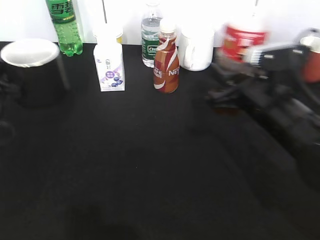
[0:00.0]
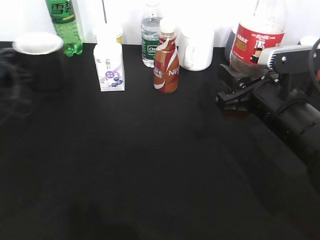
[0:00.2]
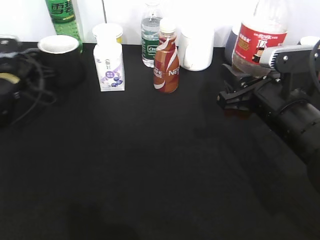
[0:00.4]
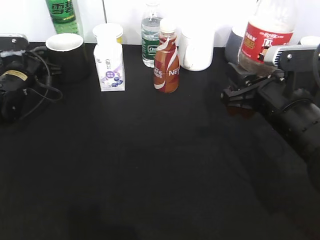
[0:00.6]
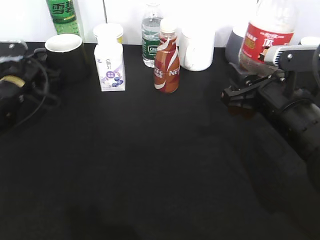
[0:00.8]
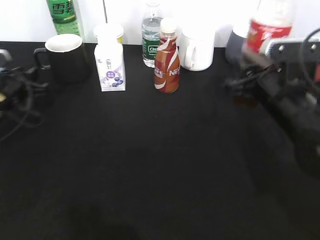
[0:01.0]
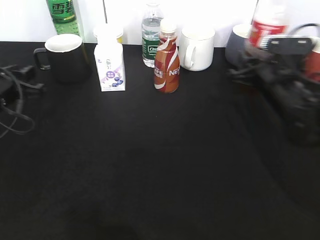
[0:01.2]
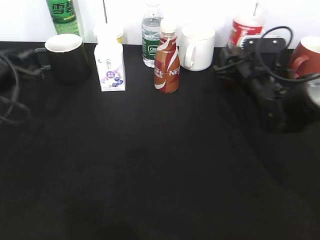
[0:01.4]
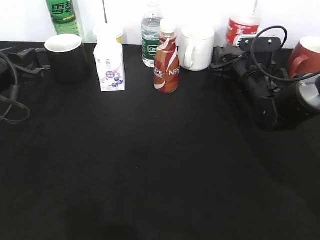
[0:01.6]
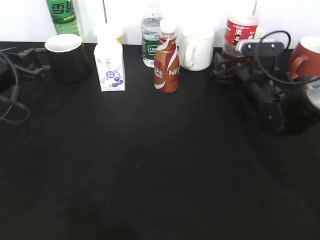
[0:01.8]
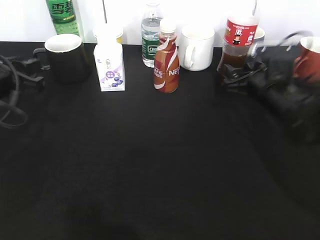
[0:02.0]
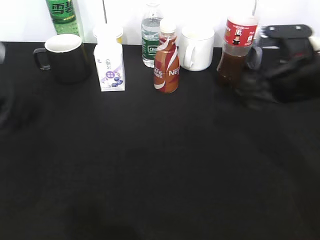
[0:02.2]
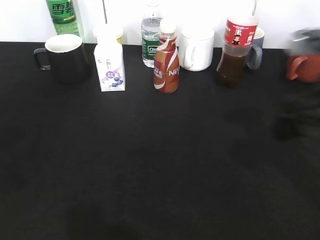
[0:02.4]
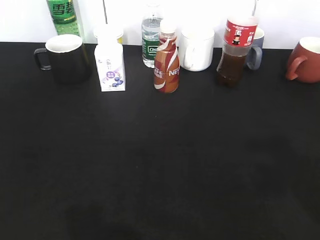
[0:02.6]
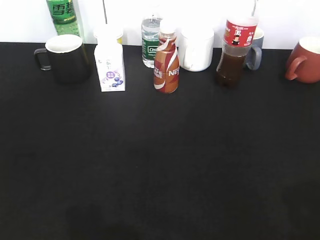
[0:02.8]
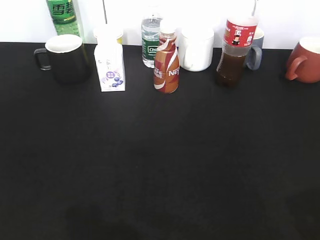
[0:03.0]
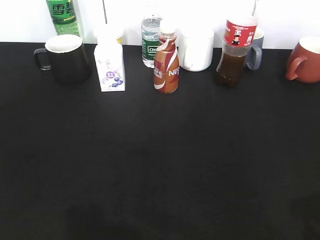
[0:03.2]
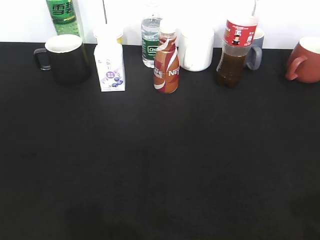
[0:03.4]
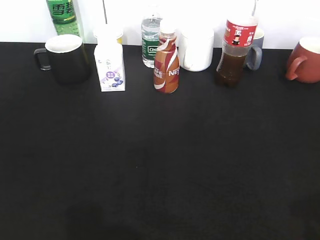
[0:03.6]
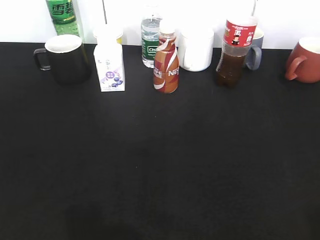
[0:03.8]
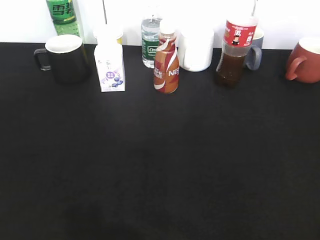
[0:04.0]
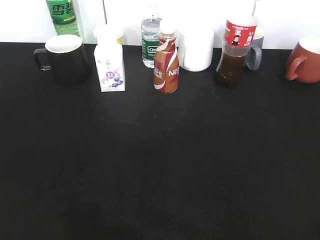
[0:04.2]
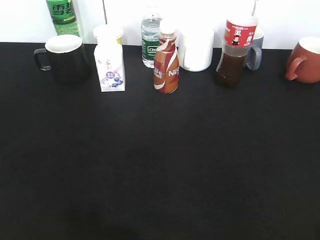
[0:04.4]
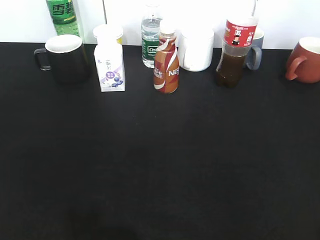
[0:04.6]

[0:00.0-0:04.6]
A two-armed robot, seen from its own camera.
Step, 0:00.0 to 0:01.0: Place the black cup on the table with left gripper.
Step, 0:01.4 to 0:02.2: Place the cola bottle on the table with right gripper.
0:00.0 to 0:01.6: The right gripper heads forward and downward, covering about 15 cm, and opens its fingers, while the left gripper travels forward and back again, roughly 15 cm each way, and opens its fingers.
0:01.6 to 0:03.0: The right gripper is displaced backward and upward by roughly 40 cm, while the left gripper moves backward, roughly 25 cm.
